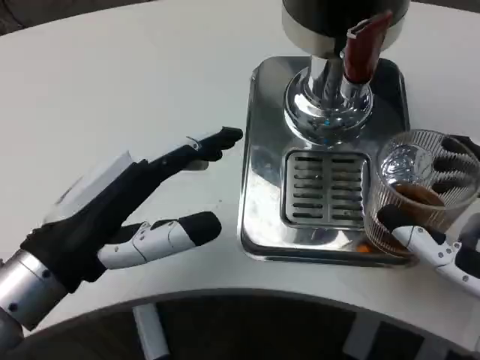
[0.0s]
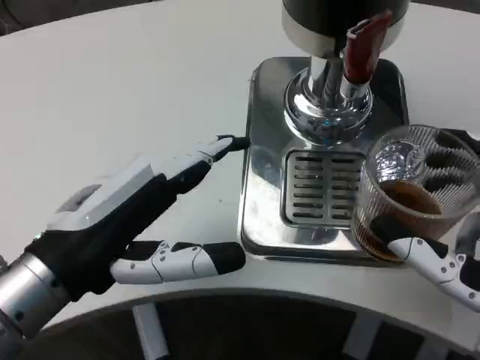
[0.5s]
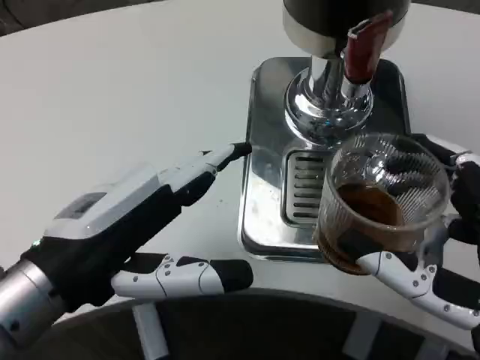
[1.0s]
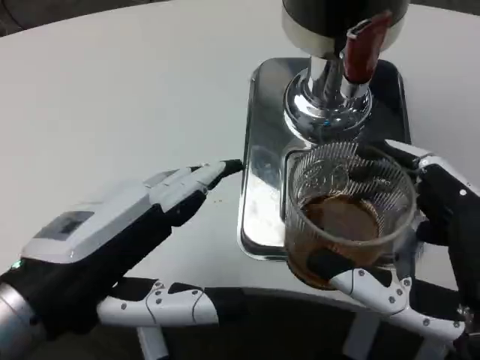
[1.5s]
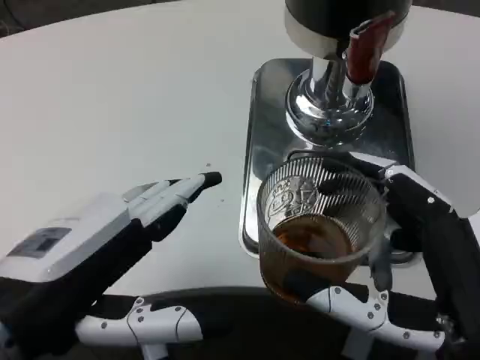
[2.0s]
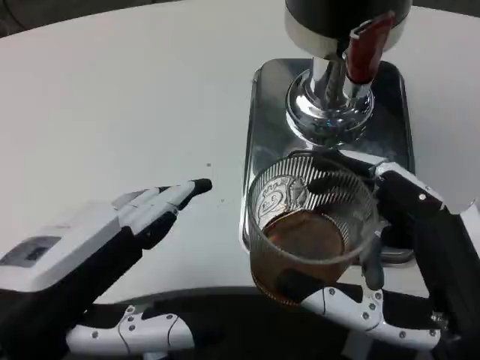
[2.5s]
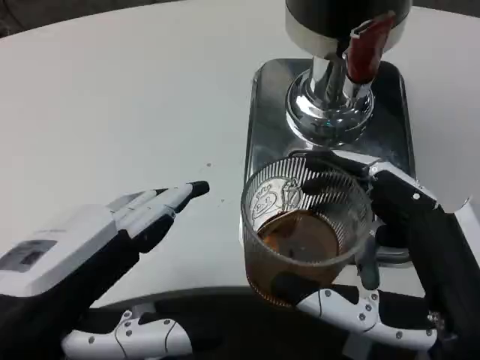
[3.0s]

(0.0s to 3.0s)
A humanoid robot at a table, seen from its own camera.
Task of the whole recording: Grasp the cup under the faucet to collect the drink, then remove the cup.
0.0s - 1.5s: The left hand travels backward by roughly 5 cm.

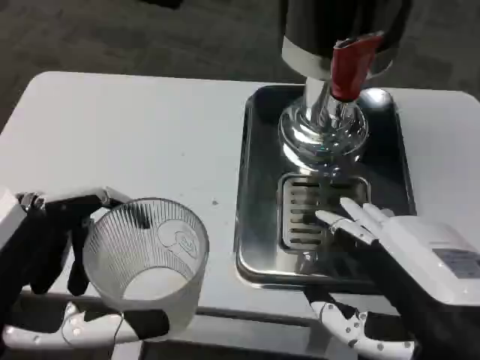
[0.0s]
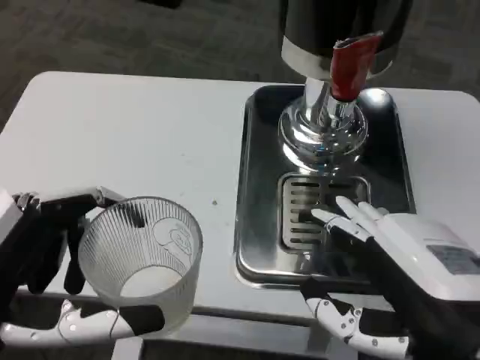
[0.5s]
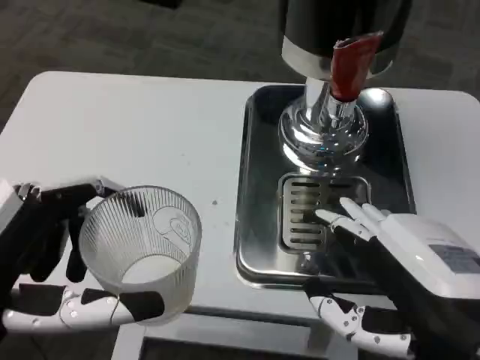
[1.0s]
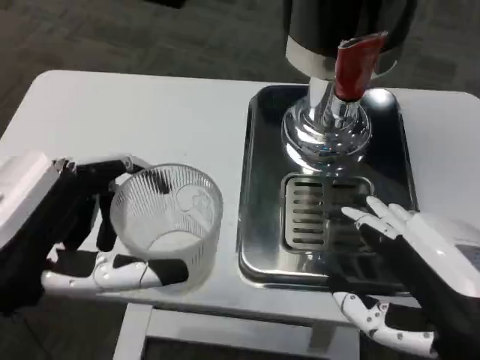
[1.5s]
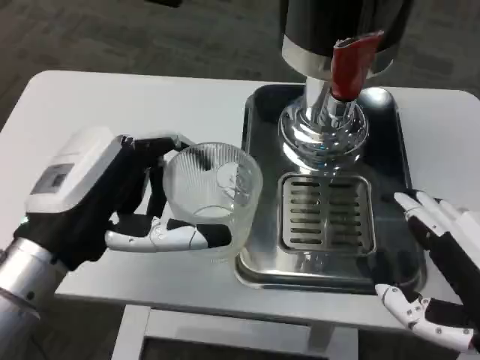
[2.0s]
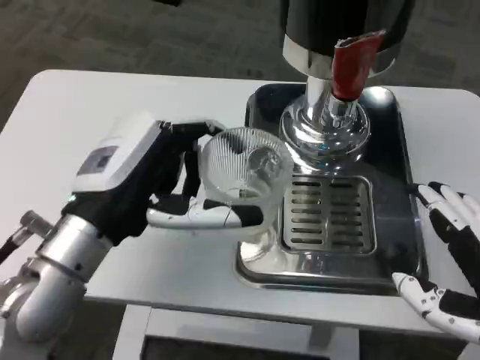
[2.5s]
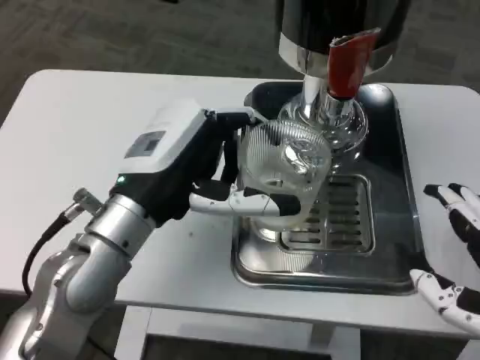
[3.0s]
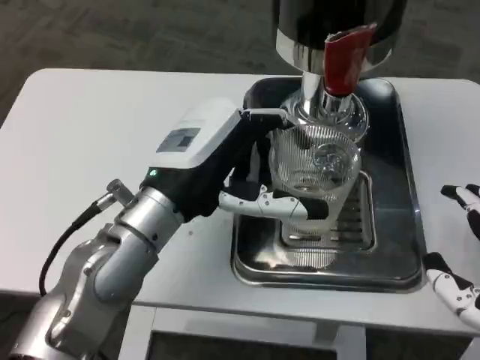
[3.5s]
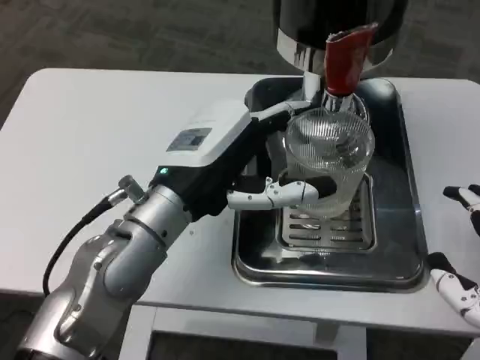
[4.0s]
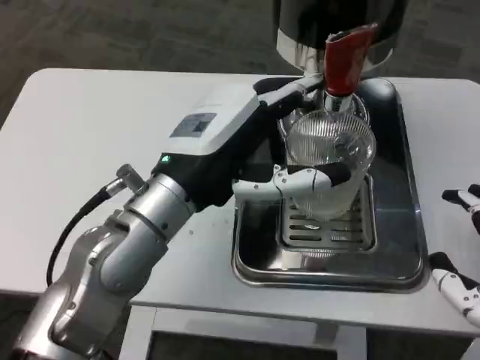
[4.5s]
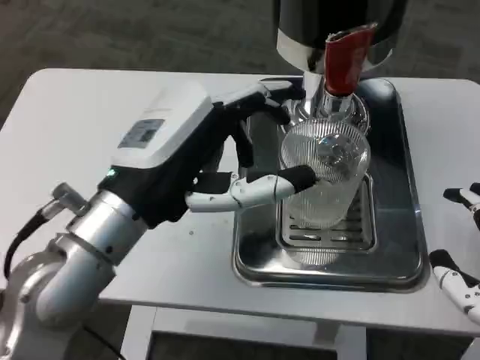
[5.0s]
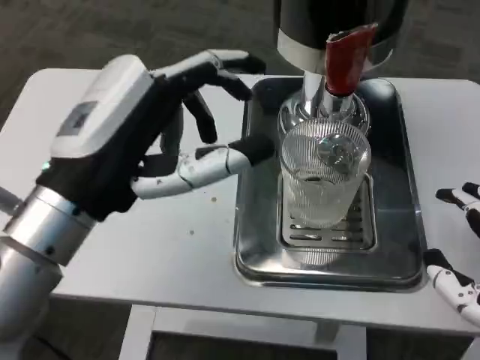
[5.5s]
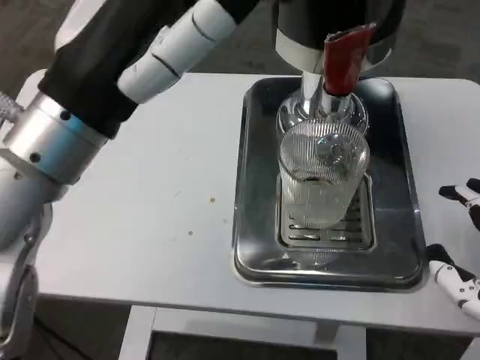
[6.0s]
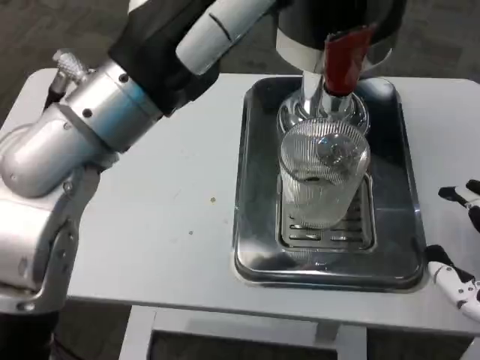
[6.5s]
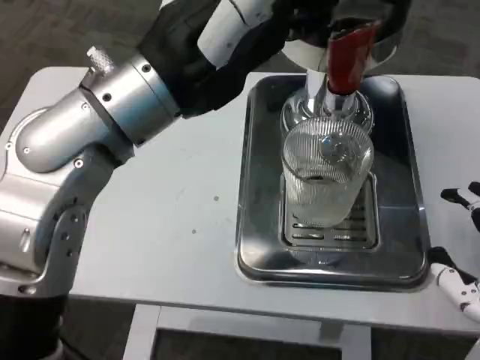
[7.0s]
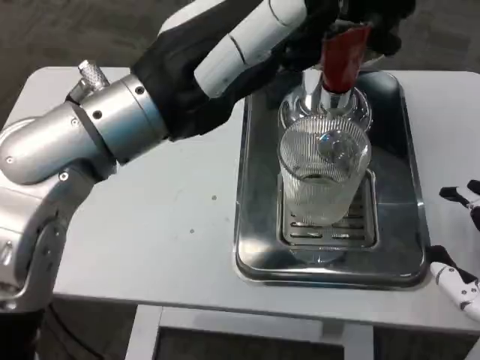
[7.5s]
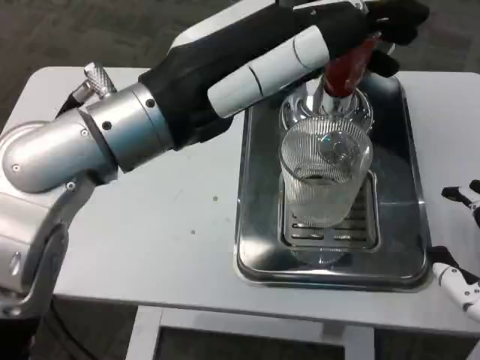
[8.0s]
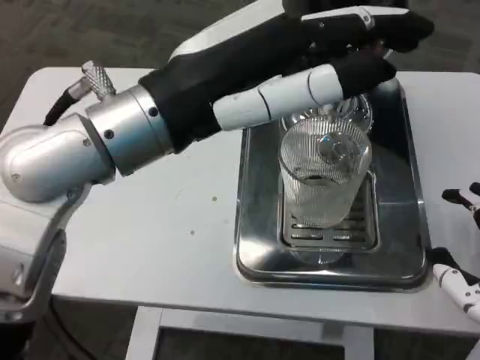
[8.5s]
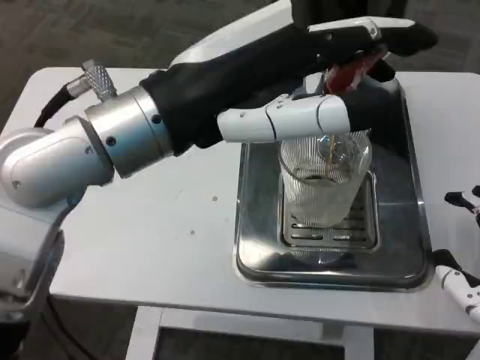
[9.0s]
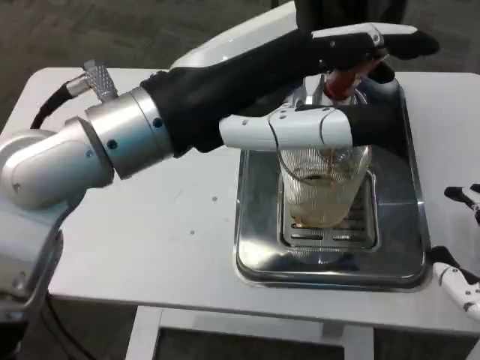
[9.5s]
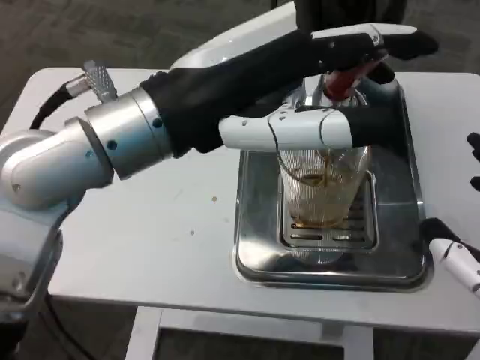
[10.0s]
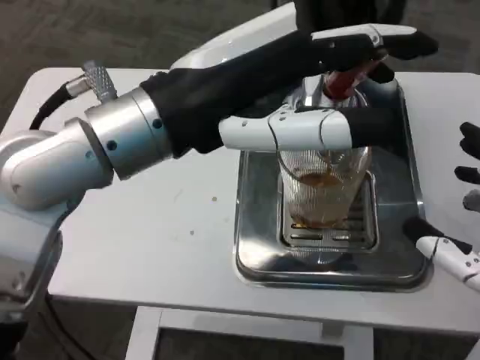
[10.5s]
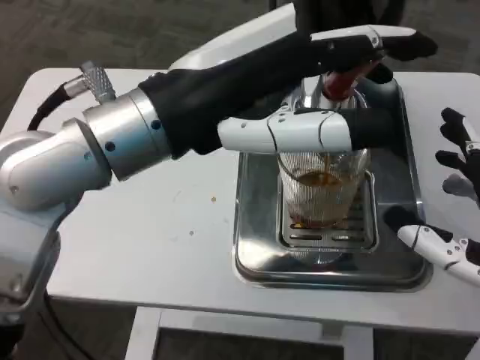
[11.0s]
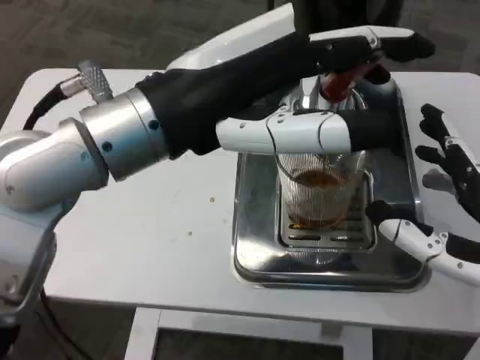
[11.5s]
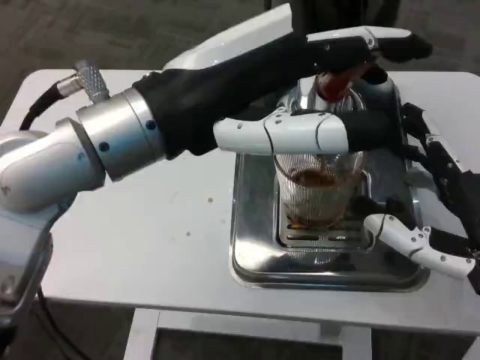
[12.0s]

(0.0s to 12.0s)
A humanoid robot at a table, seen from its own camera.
Task of the whole recording: Grasp the cup under the faucet to collect the drink, then remove the cup.
0.0s - 2.0s: The left hand goes roughly 10 cm forward.
2.0s - 4.0s: The left hand moves to the right and forward, some 10 cm.
4.0s - 6.0s: The left hand shifts about 10 cm upward and backward.
10.0s - 12.0s: The right hand travels forward by roughly 5 cm.

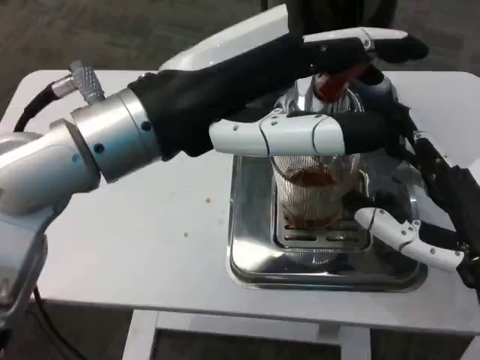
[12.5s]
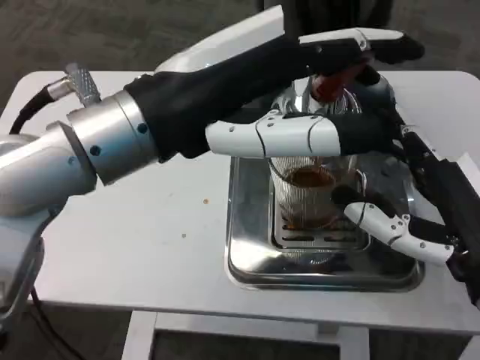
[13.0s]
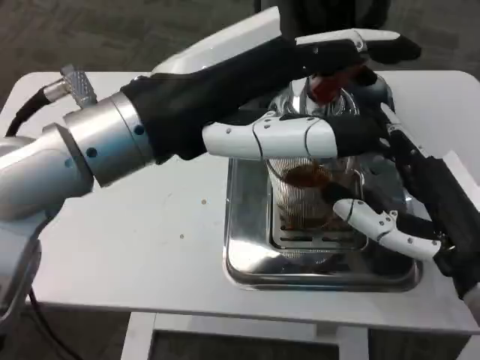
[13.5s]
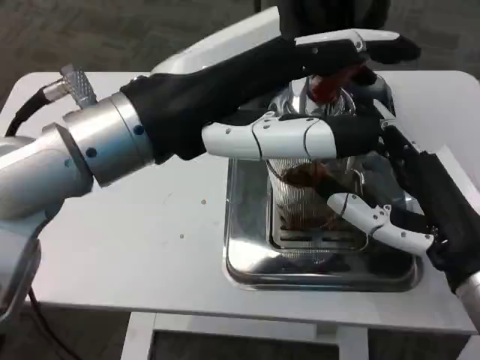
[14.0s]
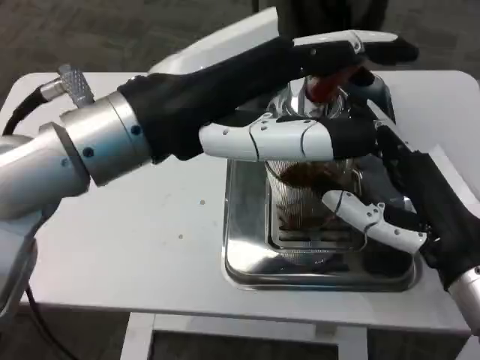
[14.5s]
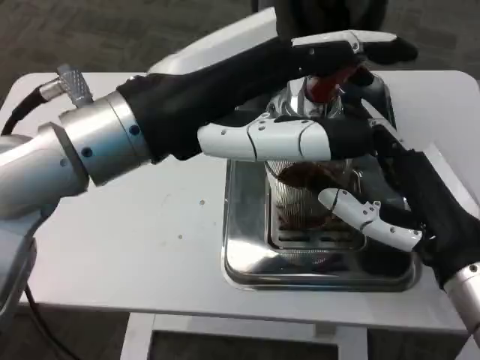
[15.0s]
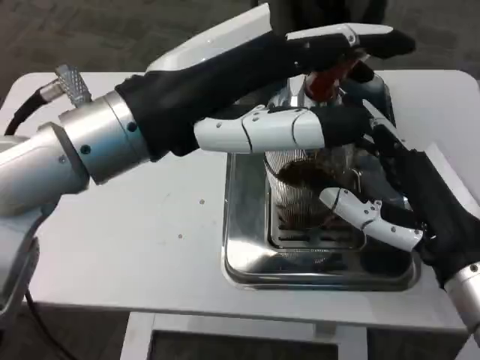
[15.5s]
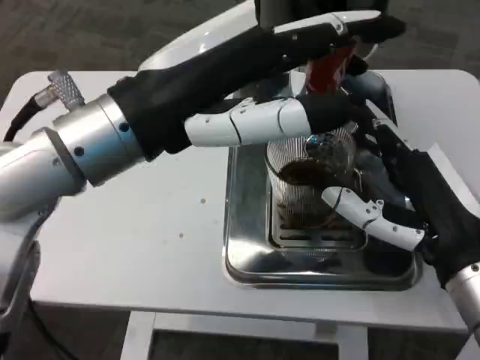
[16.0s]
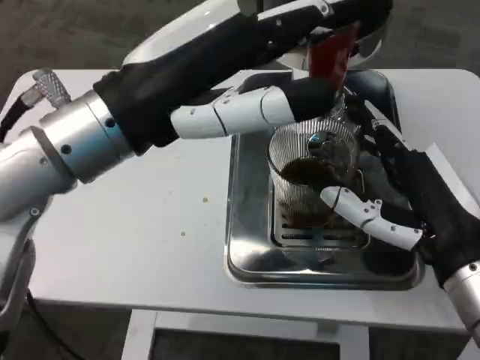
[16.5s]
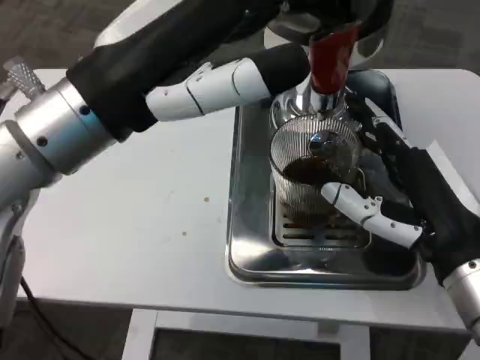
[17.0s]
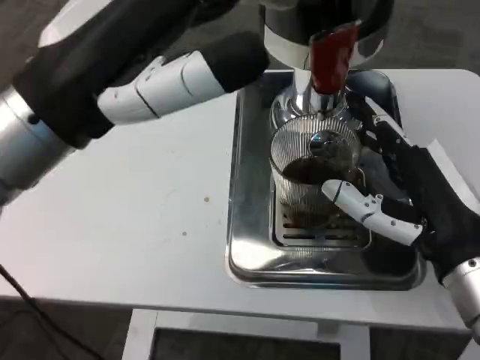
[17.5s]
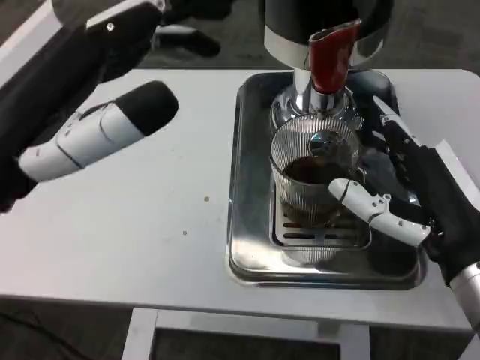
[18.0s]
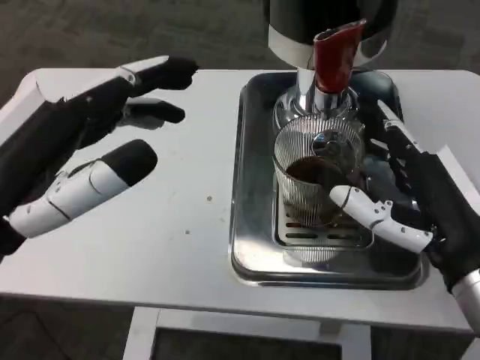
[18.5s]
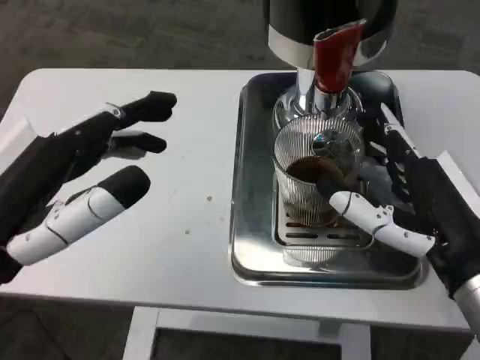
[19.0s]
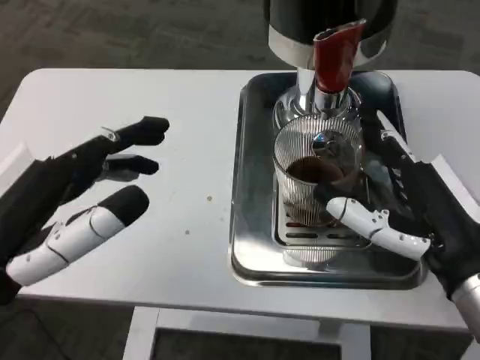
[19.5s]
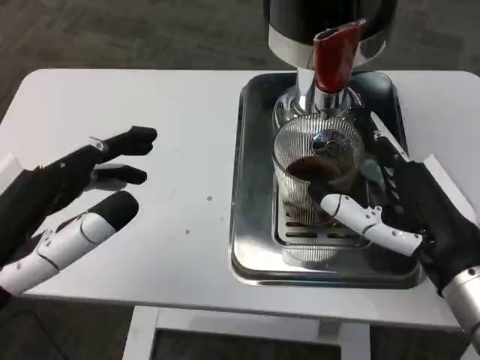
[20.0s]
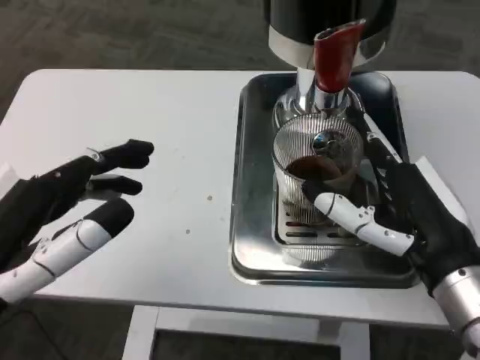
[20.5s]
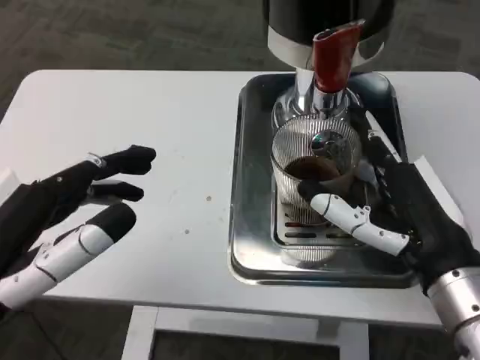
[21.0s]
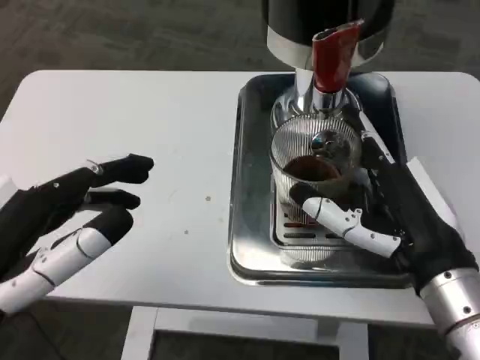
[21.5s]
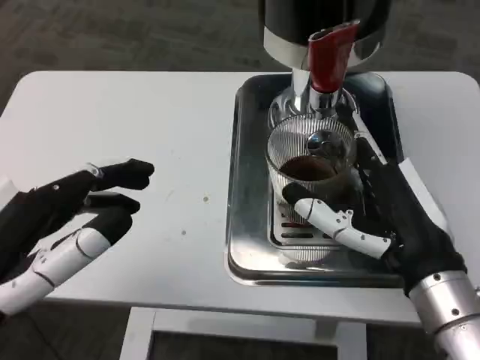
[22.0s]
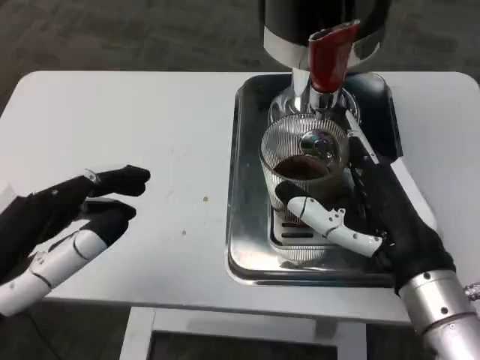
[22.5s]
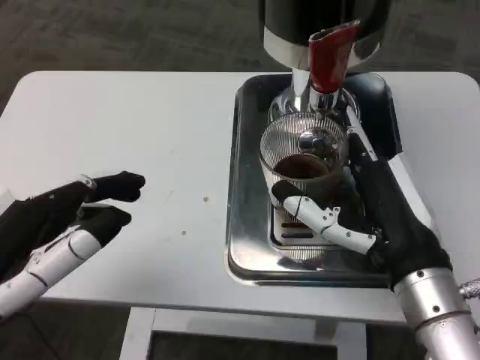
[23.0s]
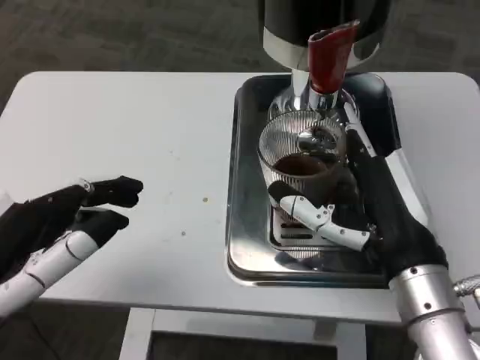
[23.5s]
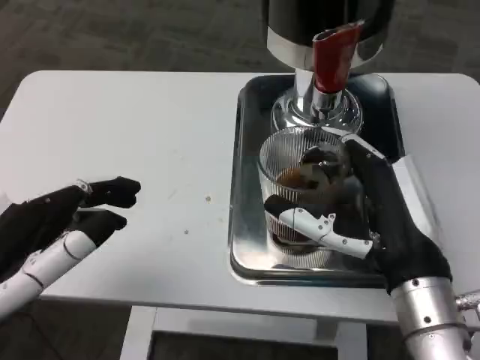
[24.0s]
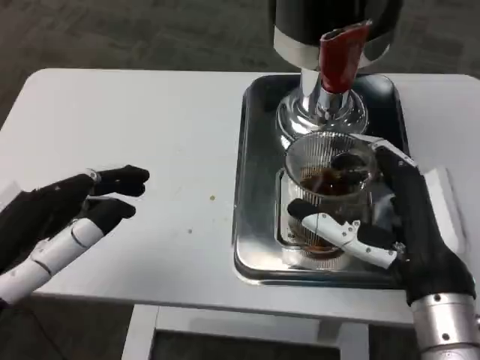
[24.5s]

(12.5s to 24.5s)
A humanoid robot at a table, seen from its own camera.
Task of the whole recording: Grasp the cup under the faucet to collect the drink, then remove the cup.
16.5s - 18.5s: The left hand heads backward, to the left and downward, covering approximately 10 cm.
